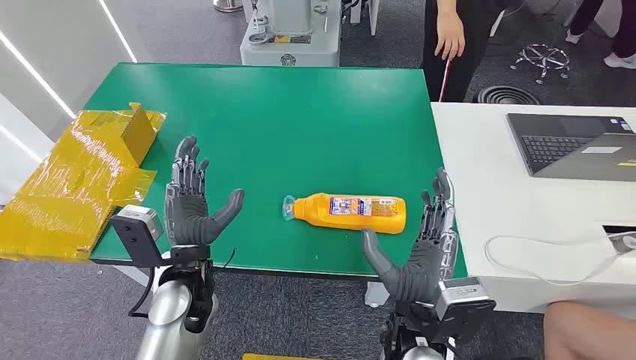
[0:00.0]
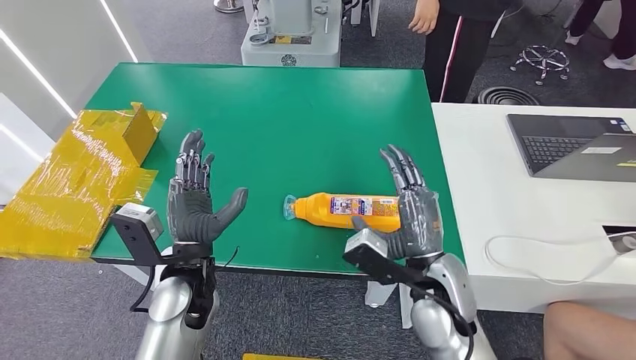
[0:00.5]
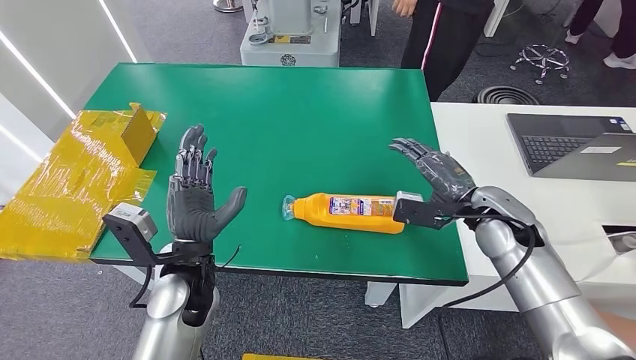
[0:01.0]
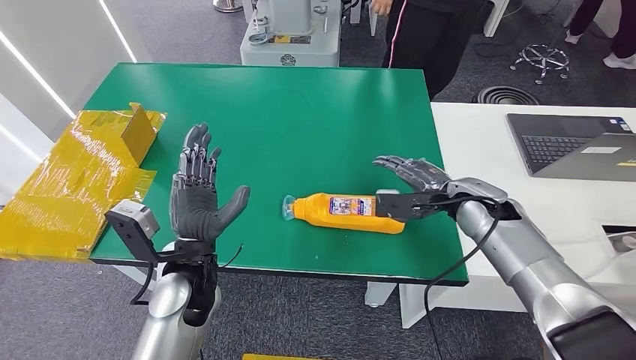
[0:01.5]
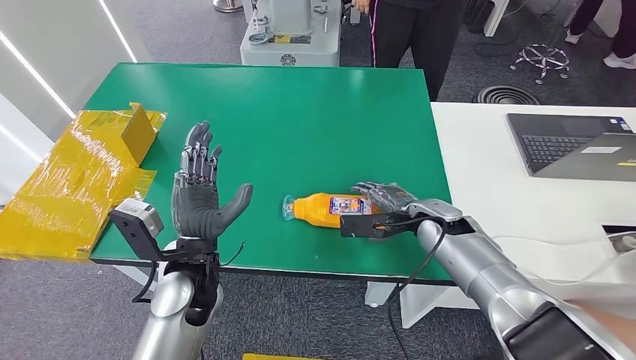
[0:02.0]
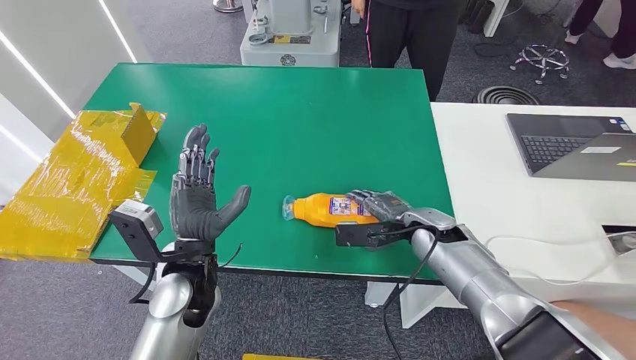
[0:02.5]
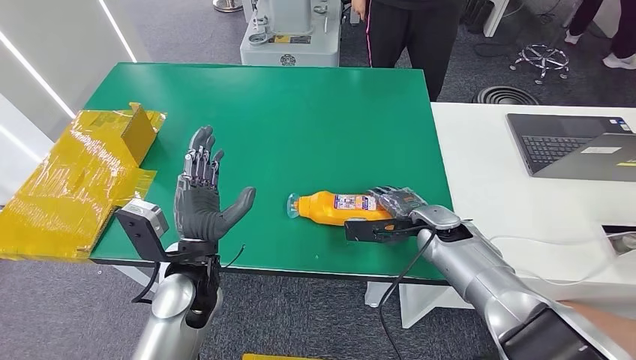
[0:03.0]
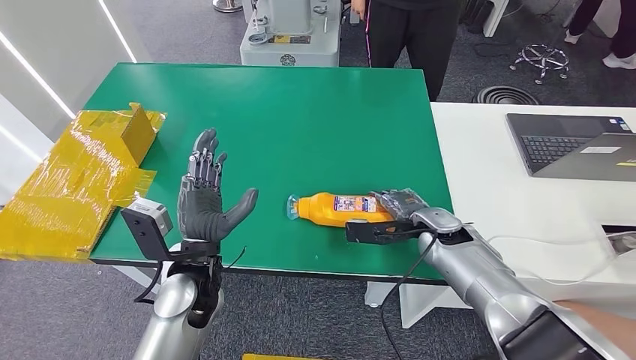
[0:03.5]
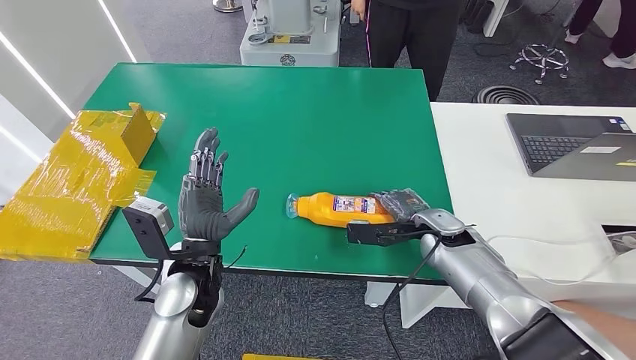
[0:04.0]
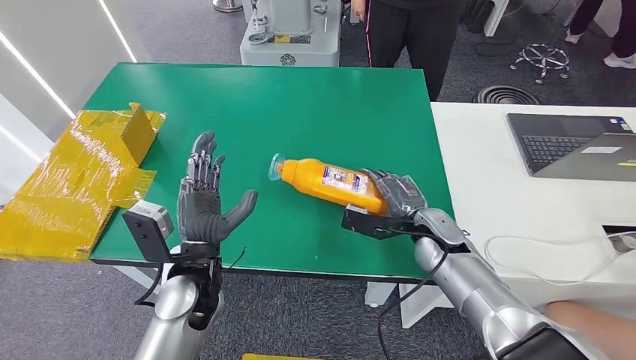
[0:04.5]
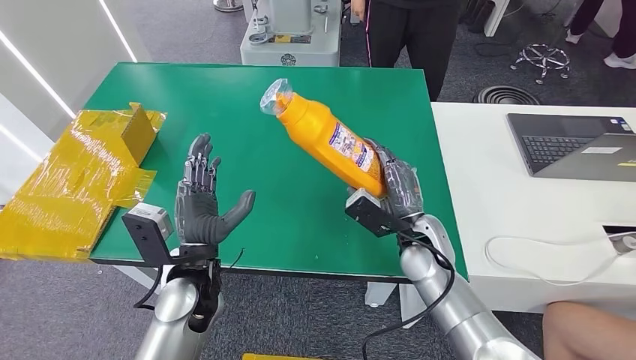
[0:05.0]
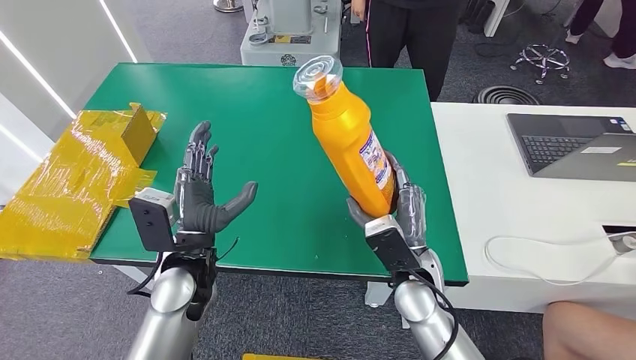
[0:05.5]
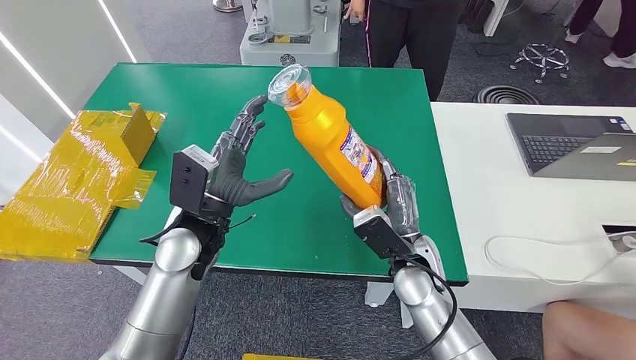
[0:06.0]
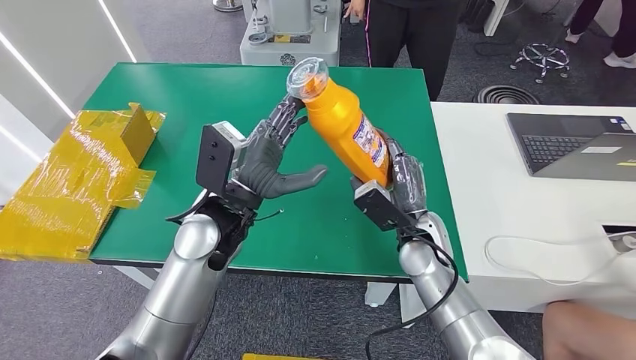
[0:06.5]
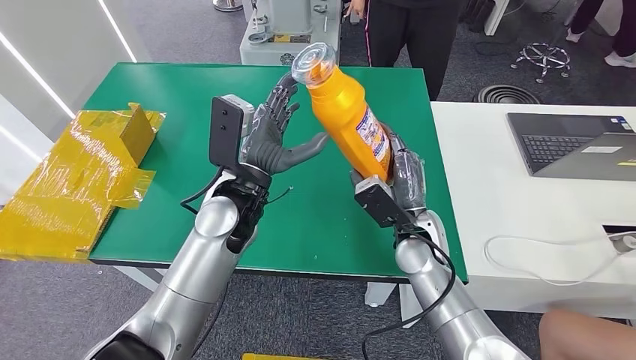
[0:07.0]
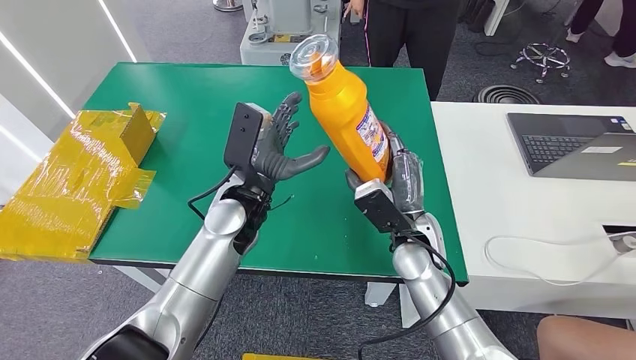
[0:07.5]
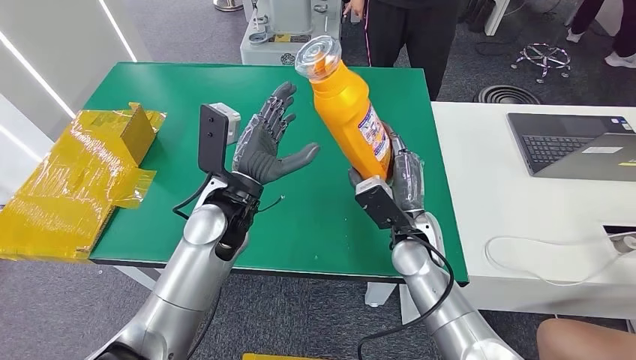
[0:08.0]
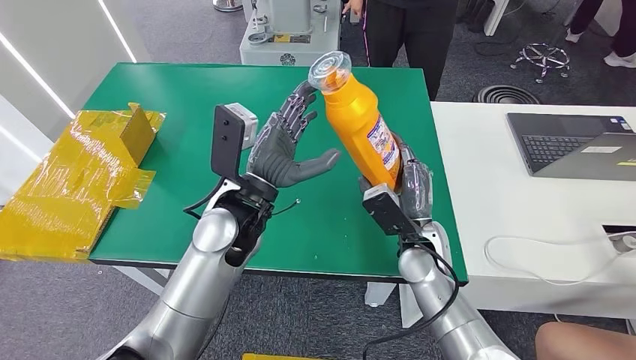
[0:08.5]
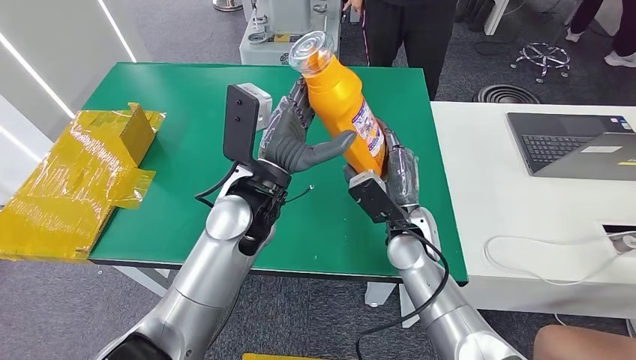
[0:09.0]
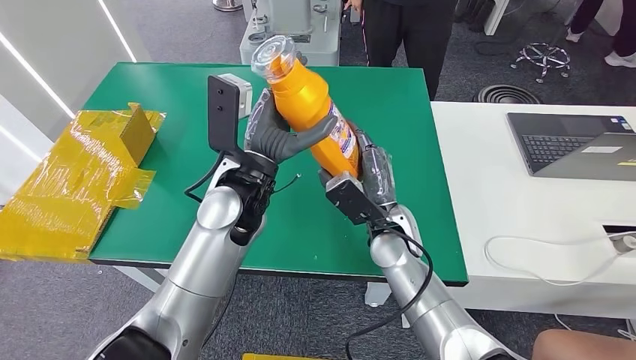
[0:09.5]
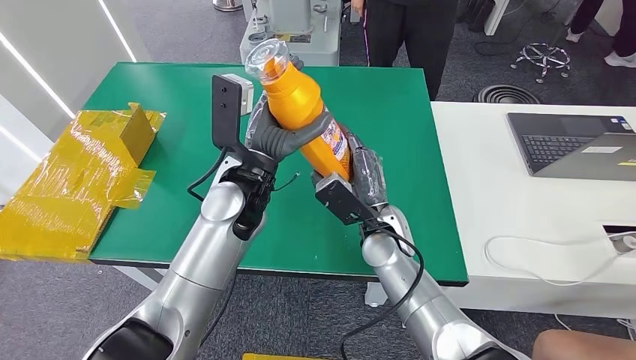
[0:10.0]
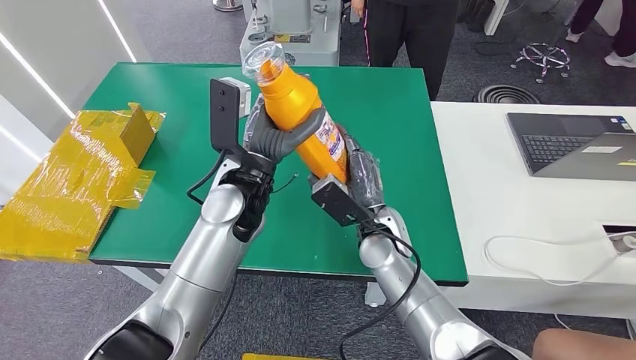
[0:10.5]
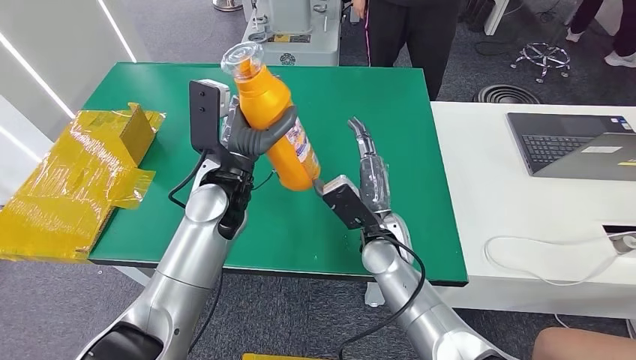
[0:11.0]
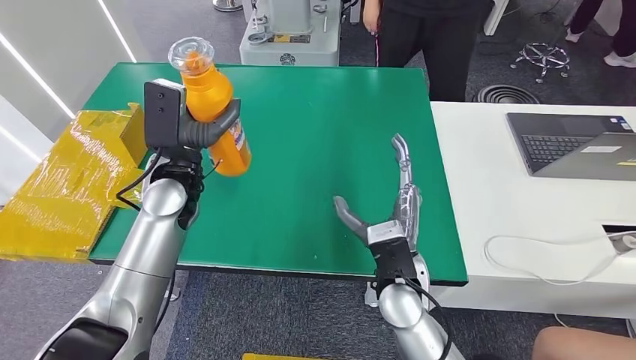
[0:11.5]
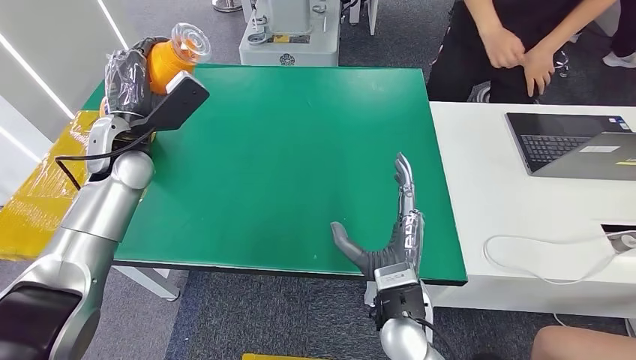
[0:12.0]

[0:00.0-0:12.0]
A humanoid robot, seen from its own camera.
Step, 0:00.0 to 0:05.0: Pick up the bottle from the table.
0:02.0 to 0:04.0: There are only small adjustments of the hands.
0:04.0 to 0:06.0: The left hand heads forward, covering some 5 cm, while the right hand shifts approximately 15 cm to the left and backward.
0:06.0 to 0:08.0: The left hand changes place by some 5 cm.
0:08.0 to 0:10.0: The right hand heads to the left, covering about 5 cm.

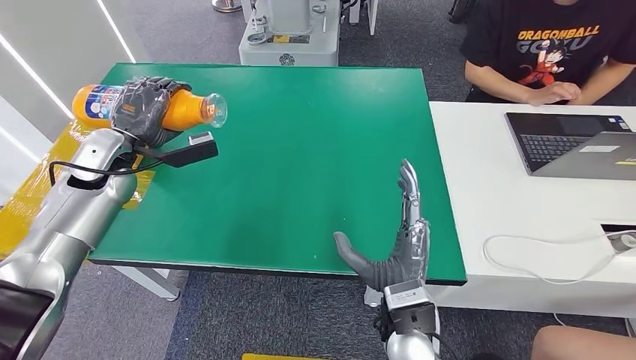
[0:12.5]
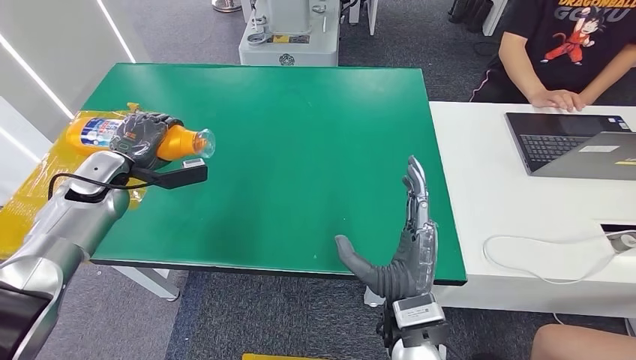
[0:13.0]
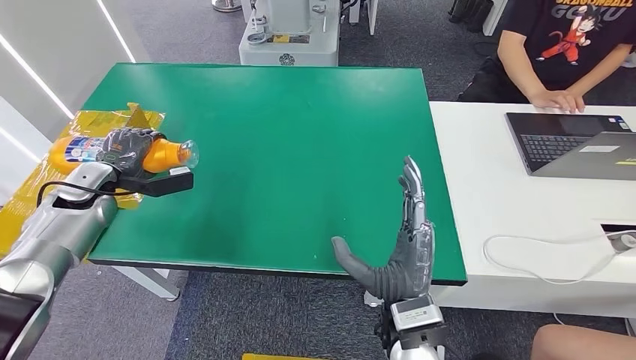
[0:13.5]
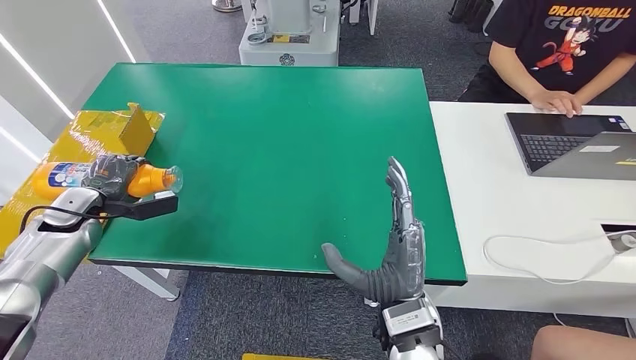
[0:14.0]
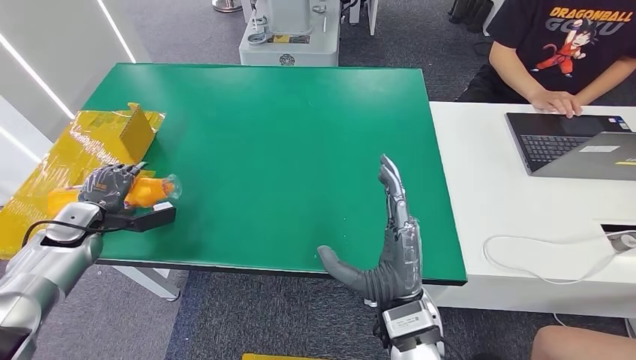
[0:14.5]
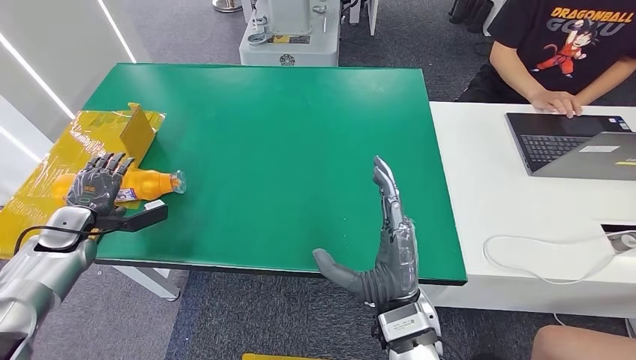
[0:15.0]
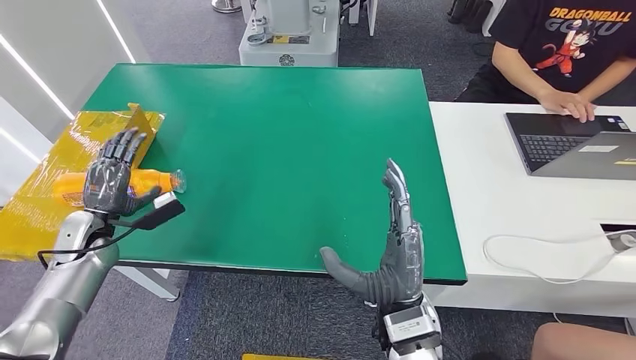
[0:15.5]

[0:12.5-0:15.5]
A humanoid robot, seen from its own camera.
Step, 0:12.5 to 0:15.5: Turn the bottle to the front side.
0:12.5 to 0:14.0: The left hand heads to the left, downward and backward, covering roughly 15 cm.
0:14.0 to 0:15.5: The left hand heads to the right, covering about 5 cm.
